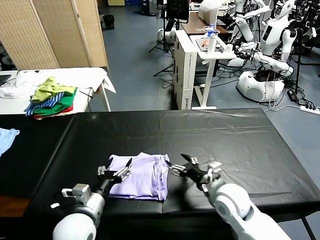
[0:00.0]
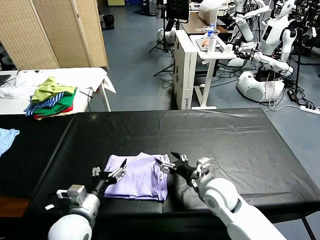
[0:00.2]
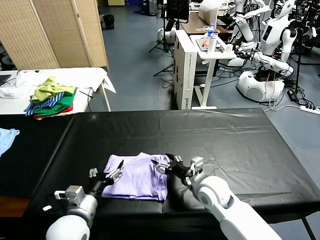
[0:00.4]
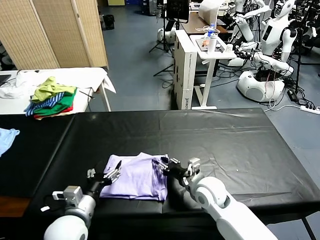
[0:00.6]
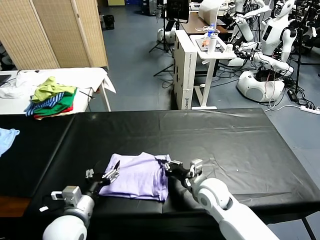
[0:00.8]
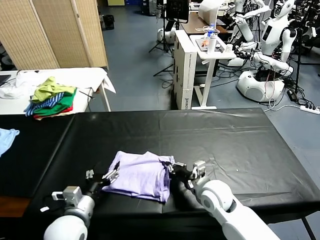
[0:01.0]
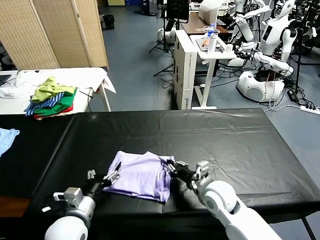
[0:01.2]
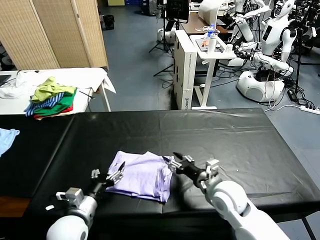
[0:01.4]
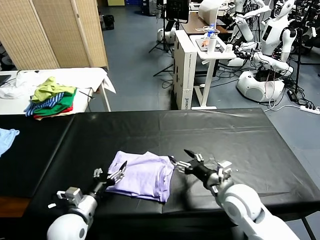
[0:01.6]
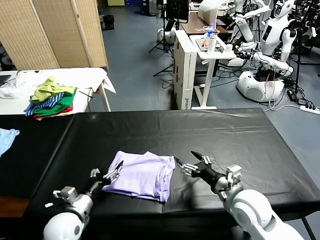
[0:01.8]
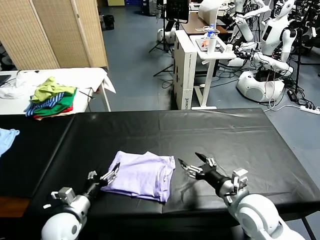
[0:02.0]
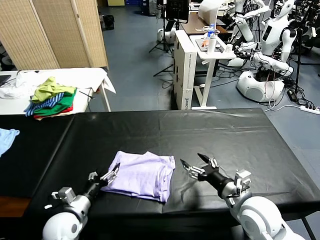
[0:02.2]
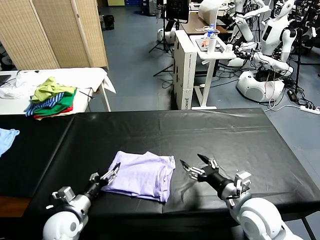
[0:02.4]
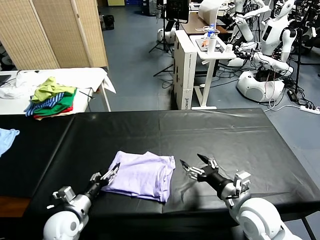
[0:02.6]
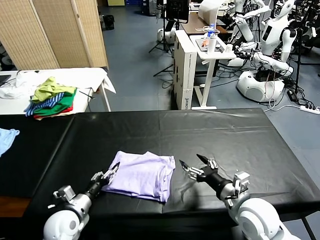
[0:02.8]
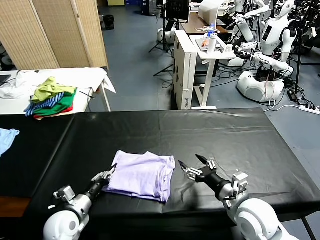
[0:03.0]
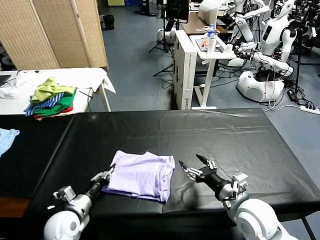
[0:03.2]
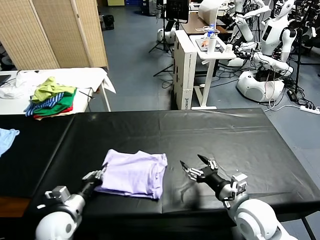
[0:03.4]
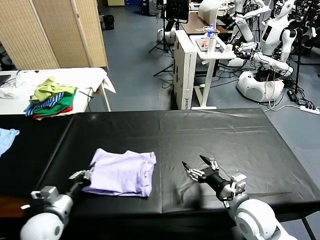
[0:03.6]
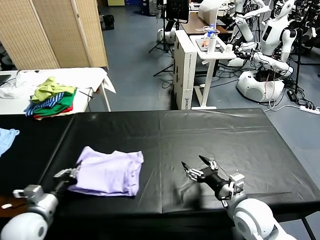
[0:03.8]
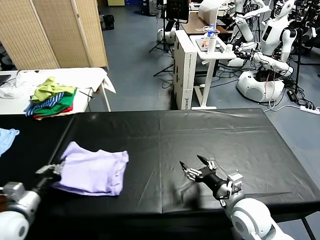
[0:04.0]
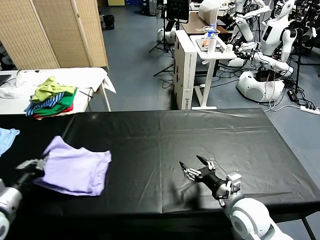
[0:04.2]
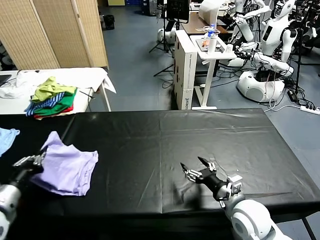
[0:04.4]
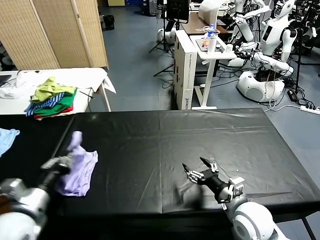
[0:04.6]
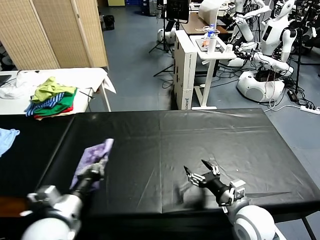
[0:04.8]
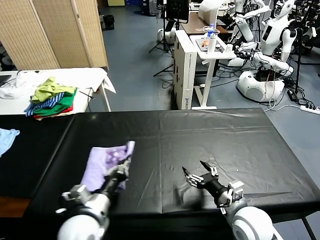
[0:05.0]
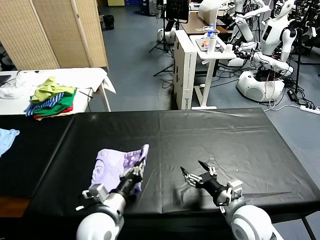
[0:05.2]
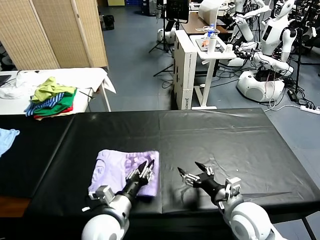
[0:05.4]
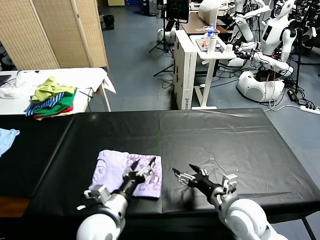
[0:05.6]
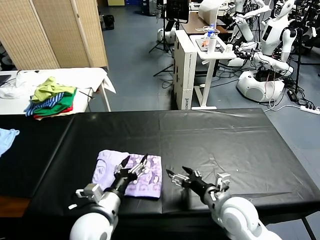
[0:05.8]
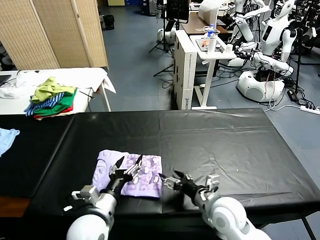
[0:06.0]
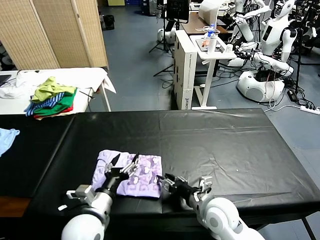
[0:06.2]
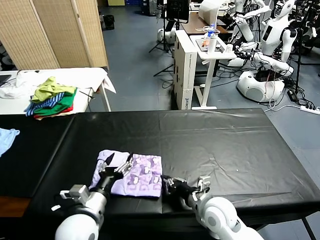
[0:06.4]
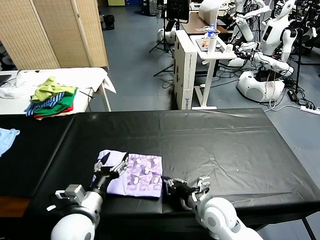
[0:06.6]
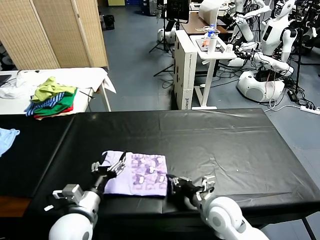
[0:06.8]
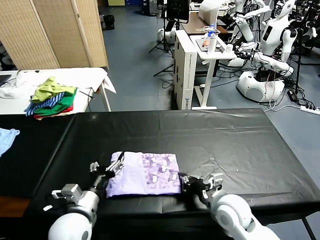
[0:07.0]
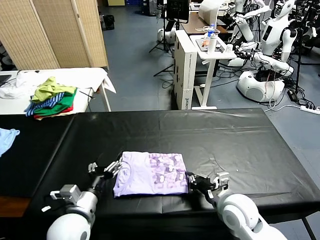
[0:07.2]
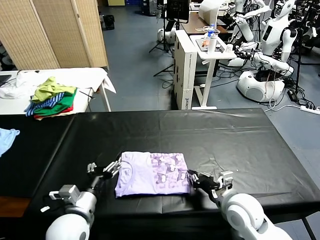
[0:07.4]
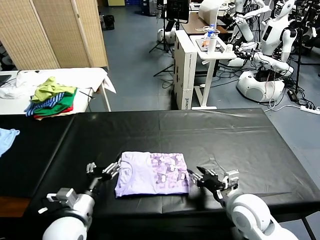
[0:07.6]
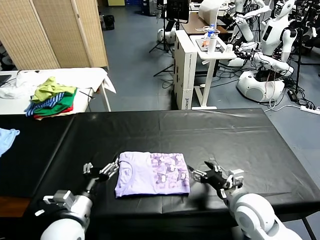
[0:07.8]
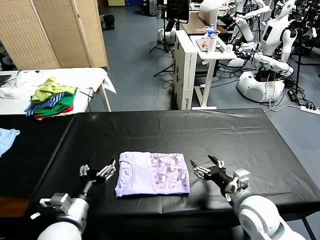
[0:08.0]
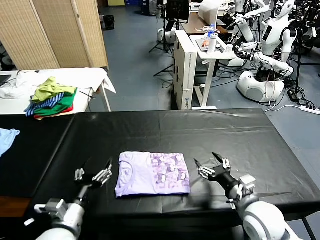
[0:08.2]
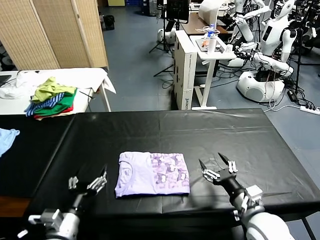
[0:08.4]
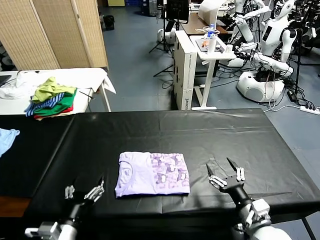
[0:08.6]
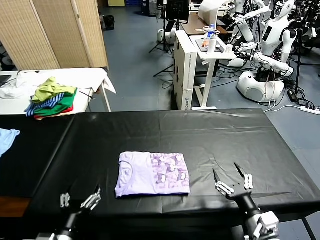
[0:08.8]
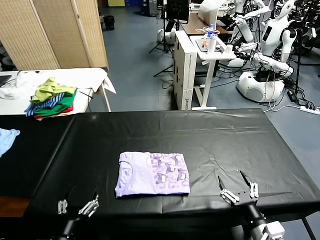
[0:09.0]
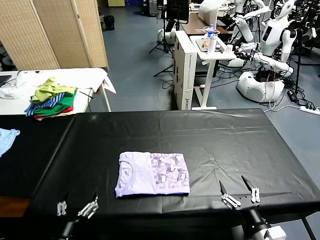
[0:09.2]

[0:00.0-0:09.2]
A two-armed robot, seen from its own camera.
Task of the whole recording: fold and organize the clothes.
Step, 0:00.0 to 0:05.4: Flip the folded clothes over with left gripper.
Step, 0:05.6 to 0:07.6: Drag the clothes to the center of the table.
0:00.0 to 0:01.6: The right gripper ends up roughly 5 cm from where it was, and closes, then opens again; the left gripper travels downward by approximately 5 cm.
0:01.6 to 0:03.0: The left gripper changes place by roughly 5 cm, and closes.
0:03.0 to 0:04.6: The left gripper travels upward by about 15 cm, and closes.
0:04.6 to 0:06.2: The right gripper moves to the left, some 5 cm. The left gripper shifts about 15 cm to the right and downward, and opens up.
0:06.2 to 0:07.6: The right gripper moves to the right, about 5 cm, and closes.
0:07.6 to 0:09.2: The left gripper is displaced backward by some 10 cm; the right gripper shifts some 15 cm backward and to the right, and opens up.

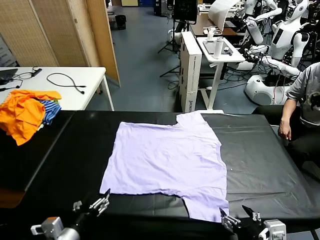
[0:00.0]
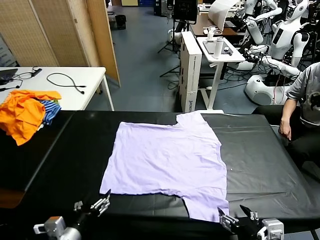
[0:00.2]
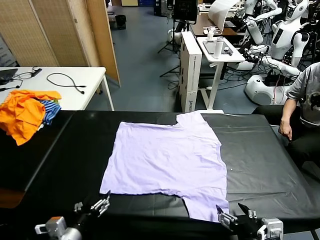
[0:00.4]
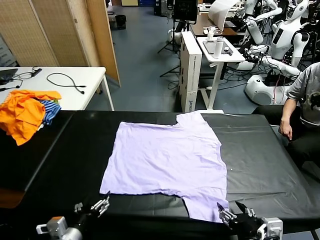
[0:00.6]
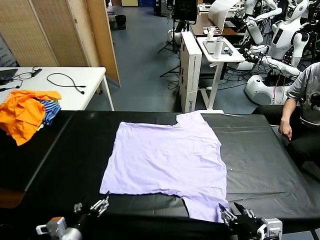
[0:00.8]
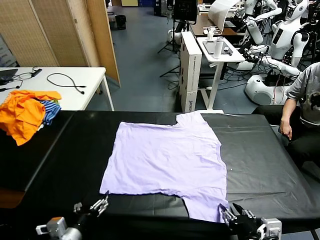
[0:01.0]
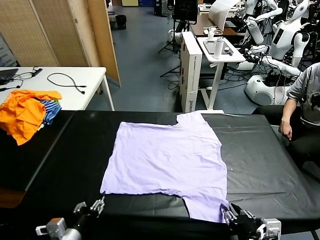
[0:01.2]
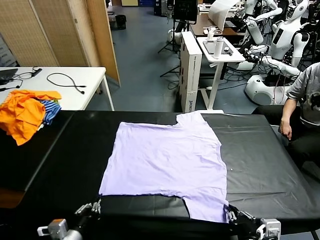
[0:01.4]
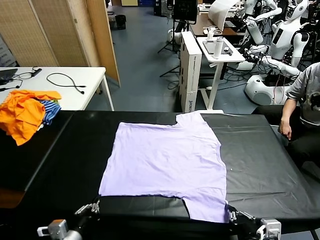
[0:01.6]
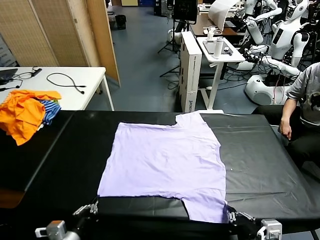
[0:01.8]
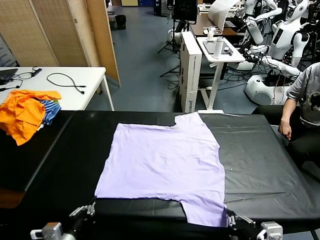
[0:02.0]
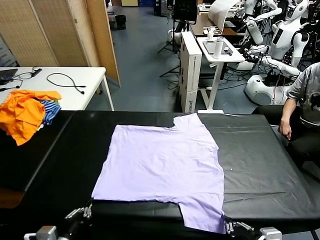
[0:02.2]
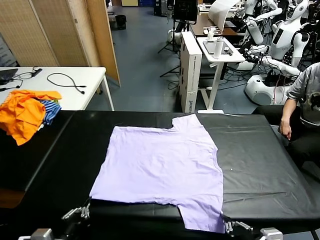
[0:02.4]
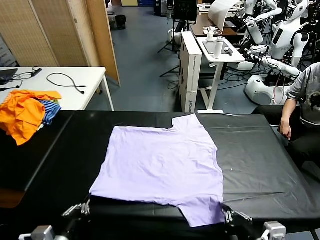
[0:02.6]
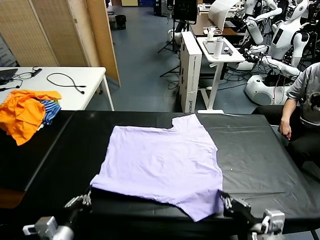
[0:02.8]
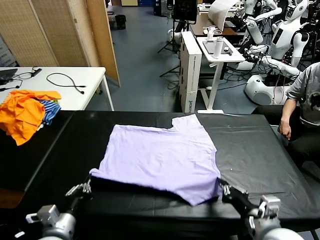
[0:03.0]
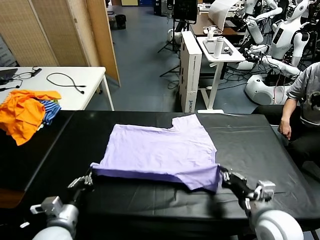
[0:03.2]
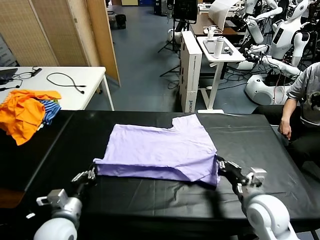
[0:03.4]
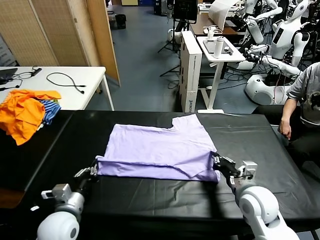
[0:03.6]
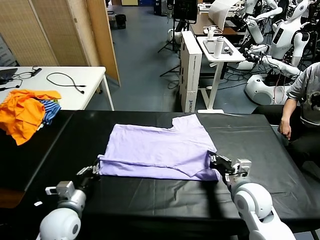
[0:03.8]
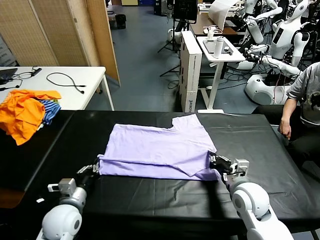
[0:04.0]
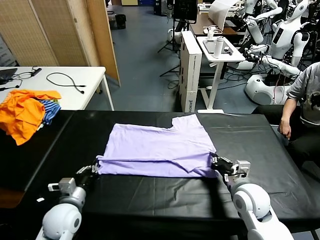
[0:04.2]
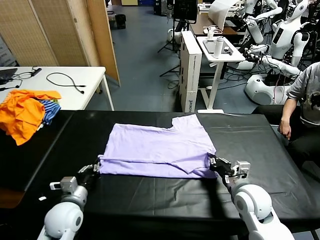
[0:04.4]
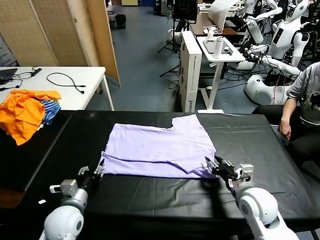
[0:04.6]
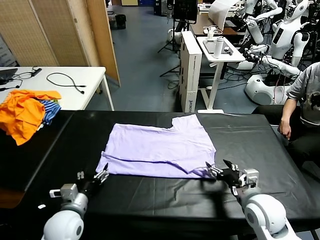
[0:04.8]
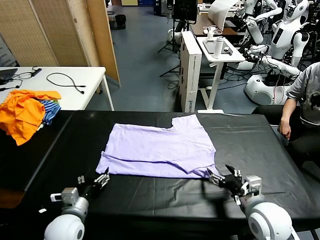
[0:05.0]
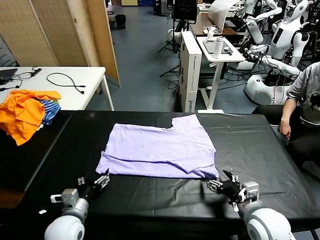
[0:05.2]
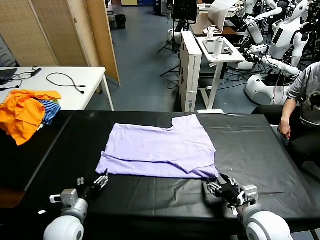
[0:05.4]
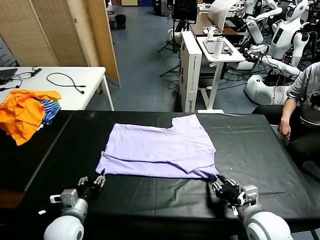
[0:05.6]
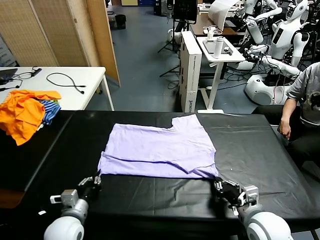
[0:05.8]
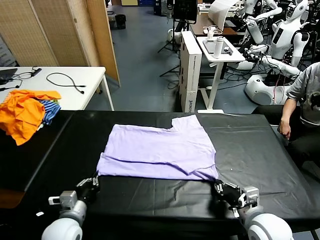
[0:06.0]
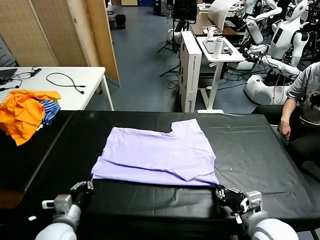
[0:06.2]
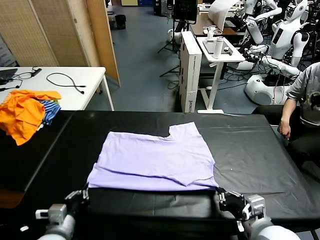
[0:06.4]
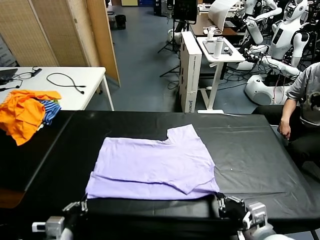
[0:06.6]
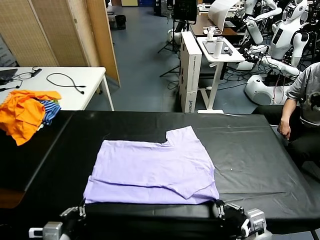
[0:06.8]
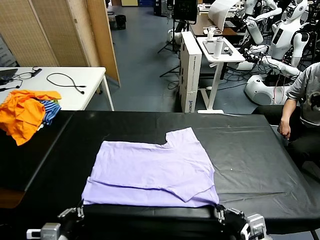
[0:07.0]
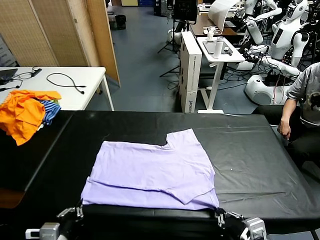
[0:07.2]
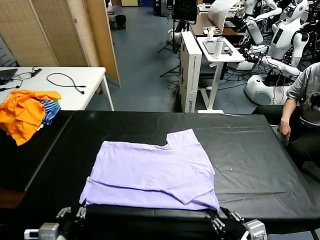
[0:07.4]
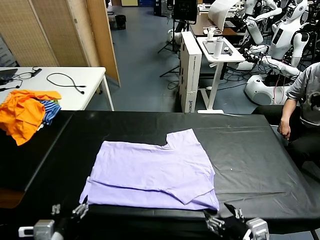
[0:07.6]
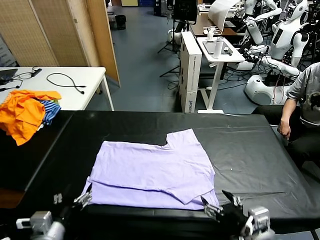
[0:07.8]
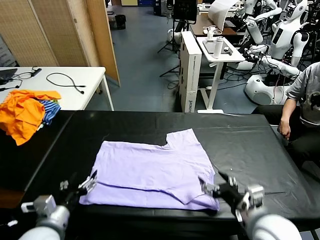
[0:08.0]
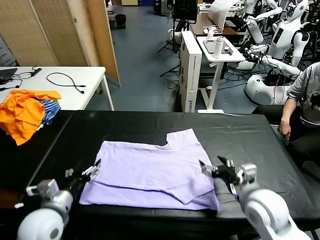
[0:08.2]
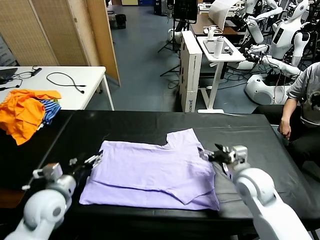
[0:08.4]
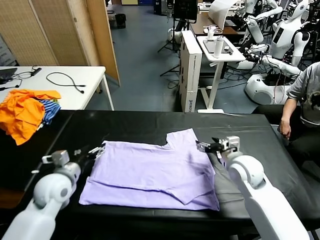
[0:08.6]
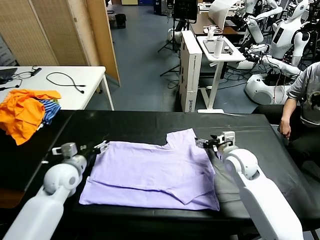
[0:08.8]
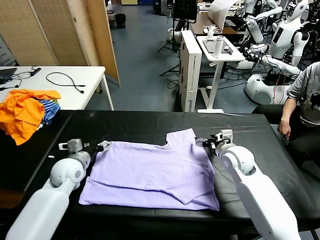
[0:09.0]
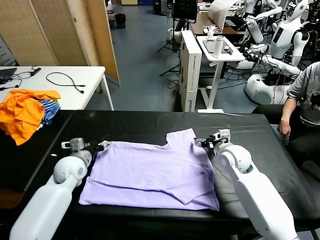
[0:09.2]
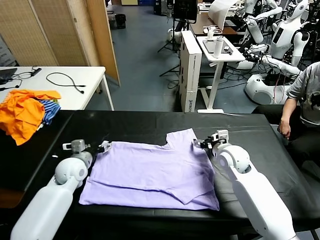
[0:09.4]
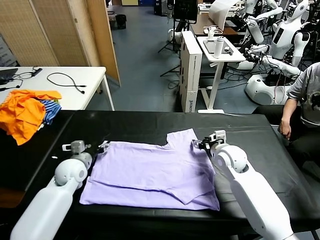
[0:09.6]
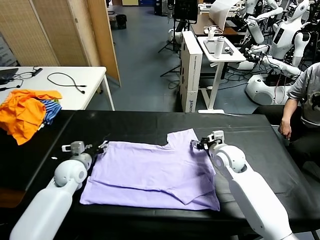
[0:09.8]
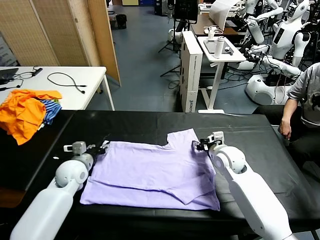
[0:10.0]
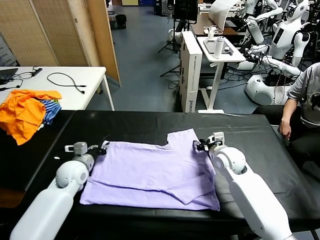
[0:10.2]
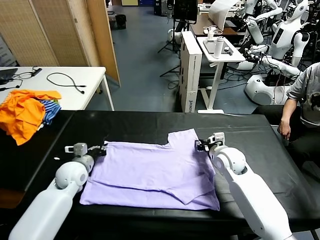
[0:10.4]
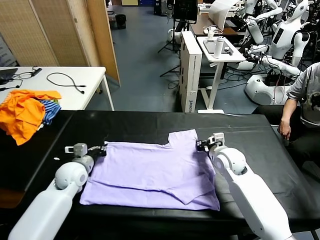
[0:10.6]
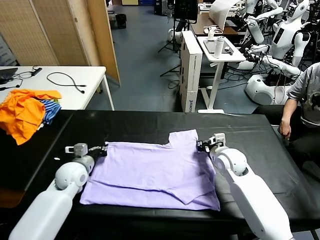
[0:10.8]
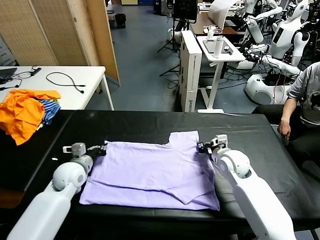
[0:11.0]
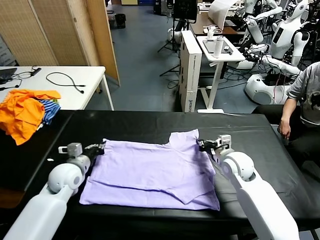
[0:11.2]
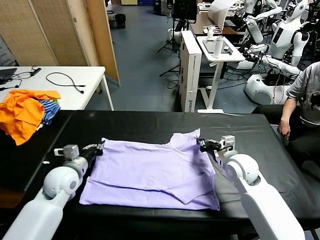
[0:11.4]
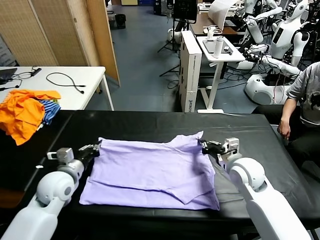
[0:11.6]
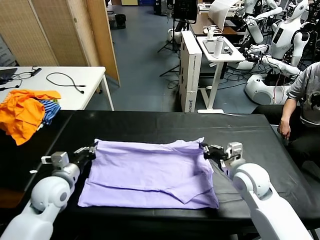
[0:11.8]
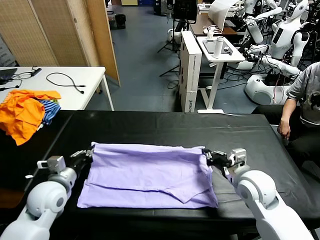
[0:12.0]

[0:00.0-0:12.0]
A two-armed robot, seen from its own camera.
Task of the whole recording: fold and organize the clothes.
Step, 0:00.0 to 0:01.8: use both grippers simultaneously to clamp the lower edge of the clothing fabric.
Step, 0:02.0 to 0:04.6: use both grippers to drag the lower edge of the fabric forward and fold it over the upper edge.
Step, 0:05.0 to 0:07.4: Drag the clothes downward with both gripper.
Step, 0:07.8 to 0:10.8: use both grippers simultaneously to clamp the upper edge of the clothing fabric.
0:01.6 to 0:03.0: The right gripper shifts about 10 cm forward; the left gripper shifts by about 5 cm.
0:03.0 to 0:04.4: Both grippers move forward, approximately 5 cm. The right gripper opens. Meanwhile the left gripper opens.
0:04.4 to 0:06.0: The right gripper travels backward by roughly 10 cm, and closes its fingers. Meanwhile the left gripper closes up.
0:06.0 to 0:07.6: The right gripper shifts approximately 5 cm backward, and opens its fingers; the left gripper goes roughly 10 cm backward and upward, and opens.
0:07.6 to 0:09.0: Both grippers travel together forward, about 30 cm.
0:09.0 to 0:10.4: The left gripper closes. The right gripper closes.
0:10.4 to 0:12.0: The right gripper is displaced backward by some 15 cm, while the left gripper heads backward and upward, covering some 10 cm.
